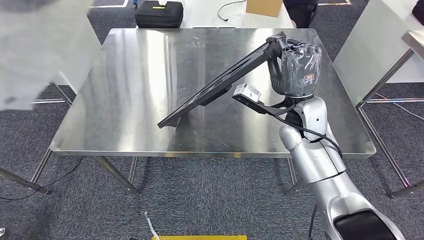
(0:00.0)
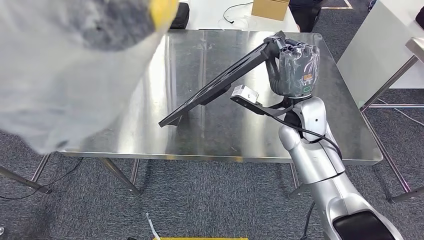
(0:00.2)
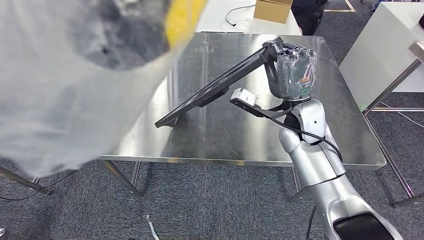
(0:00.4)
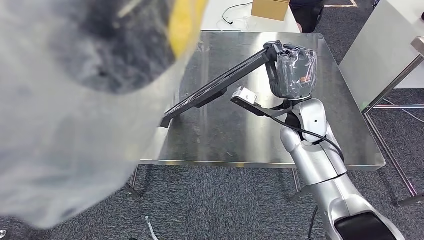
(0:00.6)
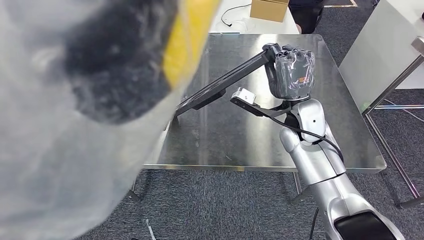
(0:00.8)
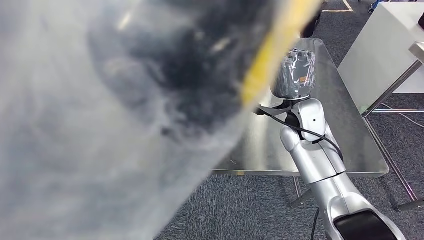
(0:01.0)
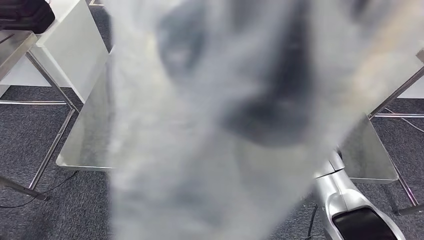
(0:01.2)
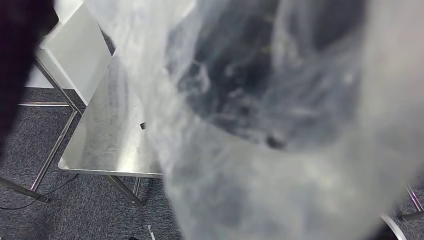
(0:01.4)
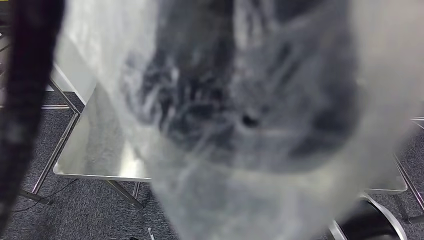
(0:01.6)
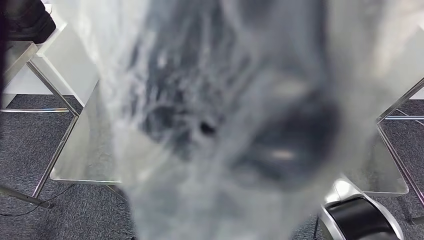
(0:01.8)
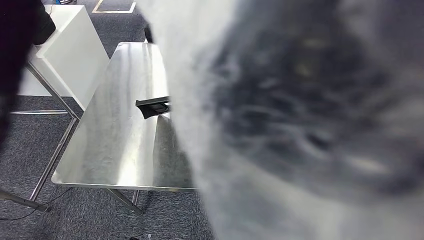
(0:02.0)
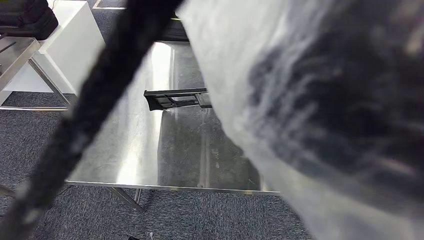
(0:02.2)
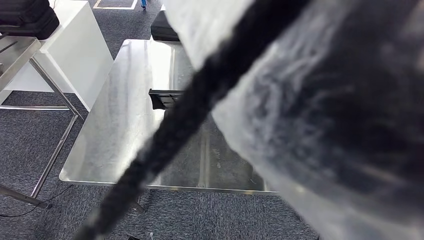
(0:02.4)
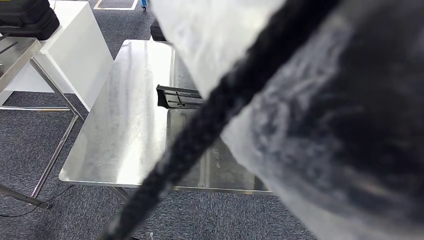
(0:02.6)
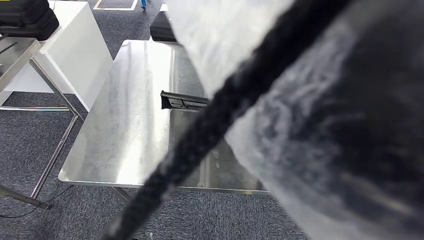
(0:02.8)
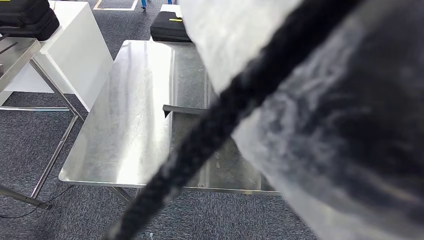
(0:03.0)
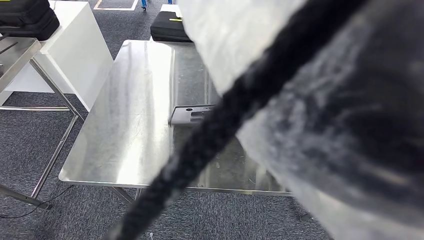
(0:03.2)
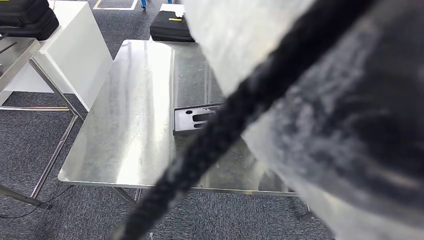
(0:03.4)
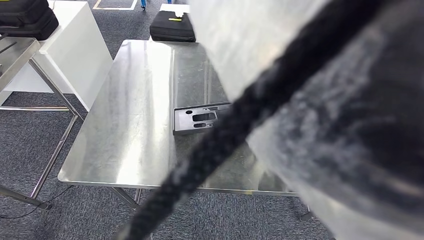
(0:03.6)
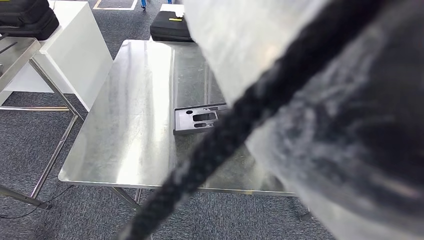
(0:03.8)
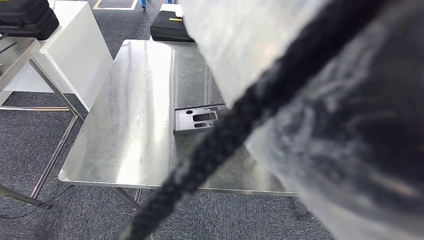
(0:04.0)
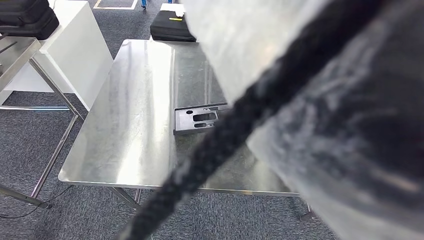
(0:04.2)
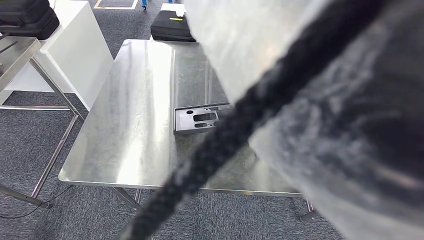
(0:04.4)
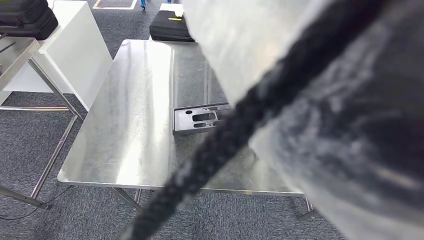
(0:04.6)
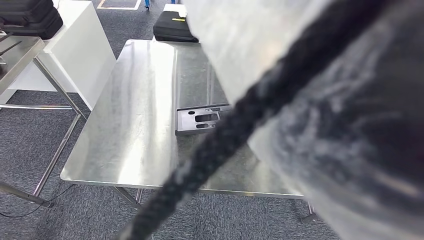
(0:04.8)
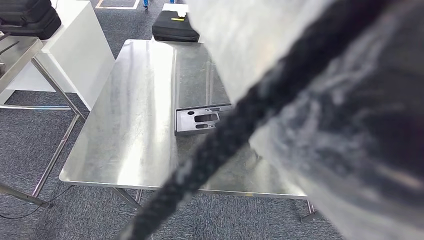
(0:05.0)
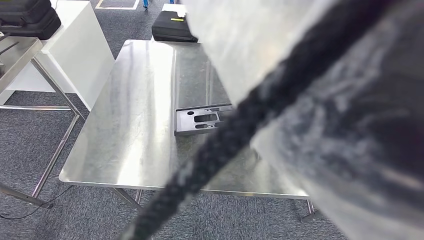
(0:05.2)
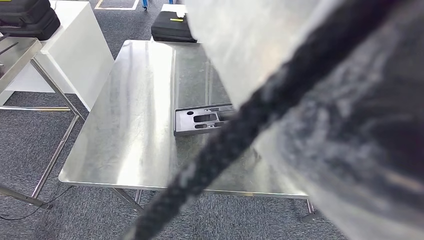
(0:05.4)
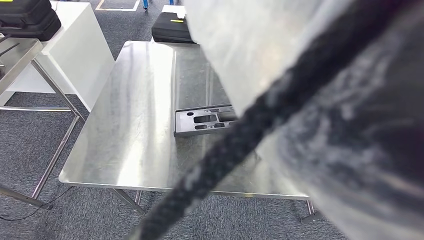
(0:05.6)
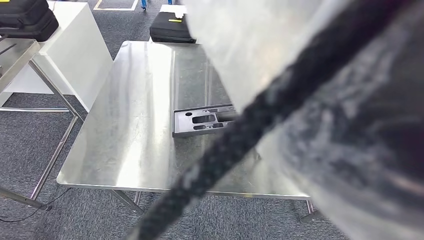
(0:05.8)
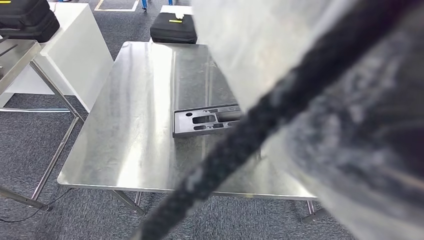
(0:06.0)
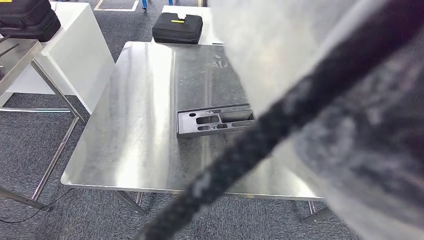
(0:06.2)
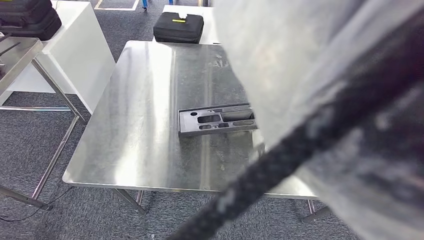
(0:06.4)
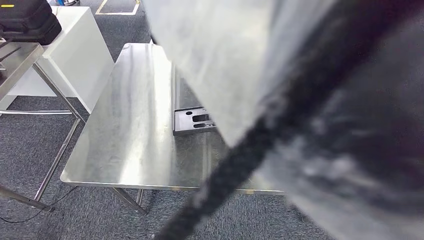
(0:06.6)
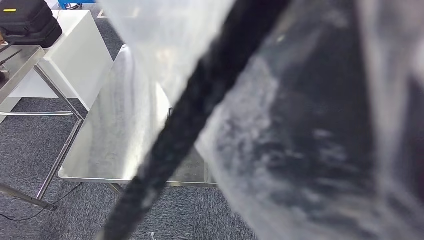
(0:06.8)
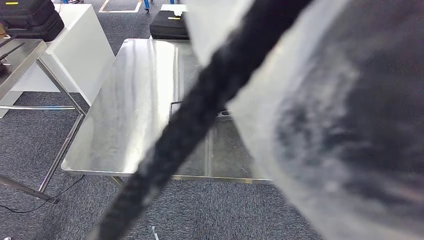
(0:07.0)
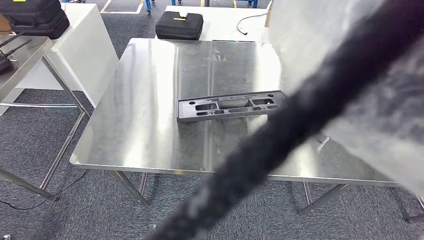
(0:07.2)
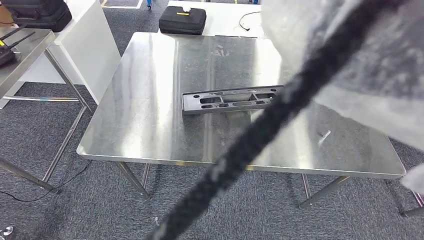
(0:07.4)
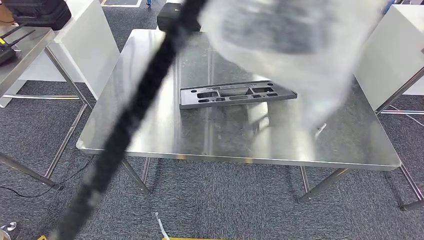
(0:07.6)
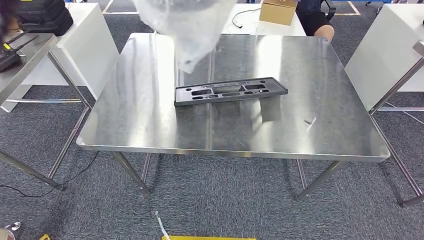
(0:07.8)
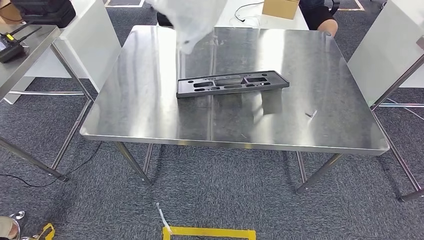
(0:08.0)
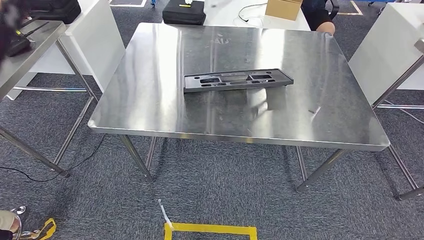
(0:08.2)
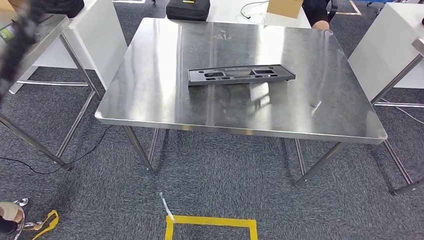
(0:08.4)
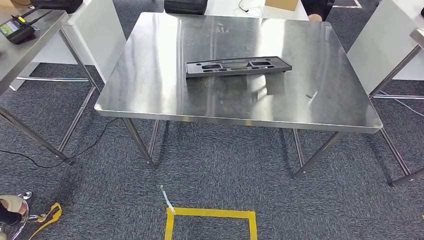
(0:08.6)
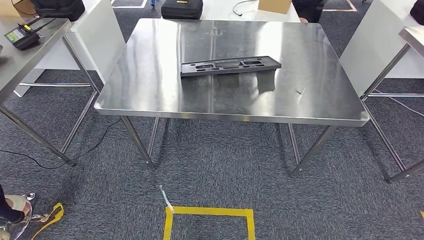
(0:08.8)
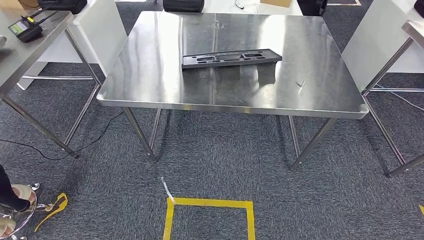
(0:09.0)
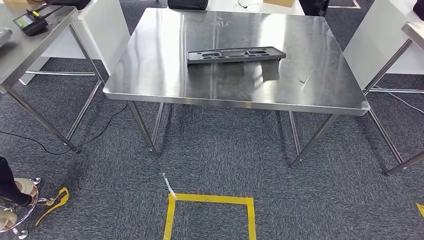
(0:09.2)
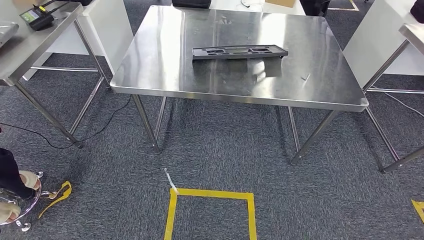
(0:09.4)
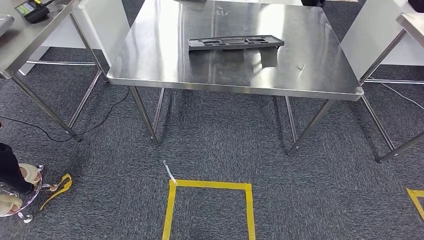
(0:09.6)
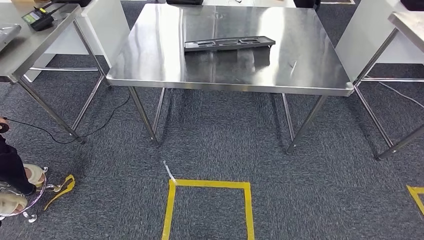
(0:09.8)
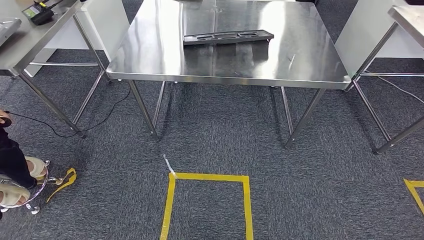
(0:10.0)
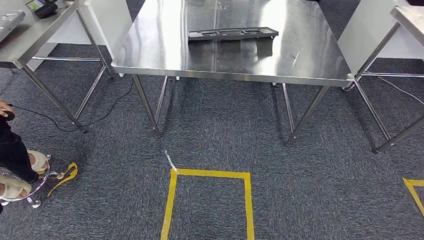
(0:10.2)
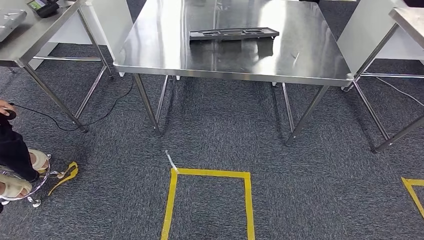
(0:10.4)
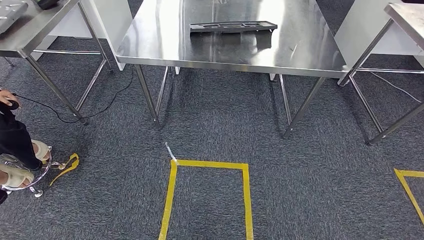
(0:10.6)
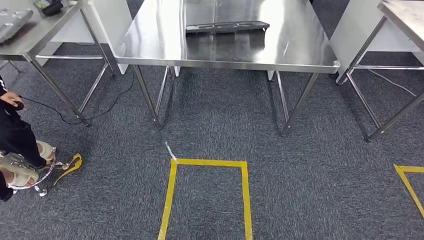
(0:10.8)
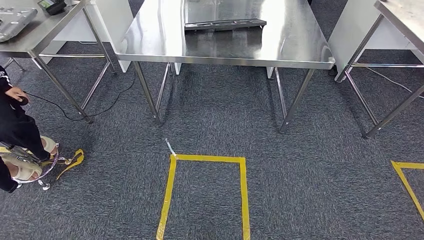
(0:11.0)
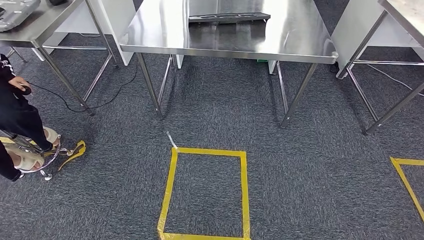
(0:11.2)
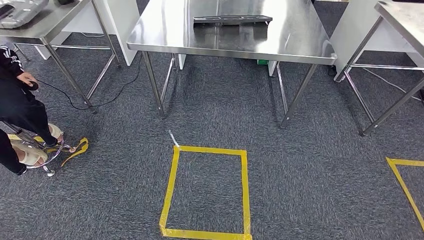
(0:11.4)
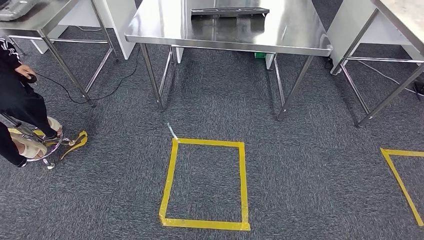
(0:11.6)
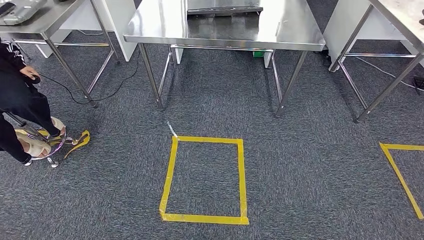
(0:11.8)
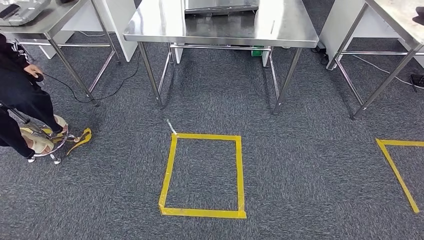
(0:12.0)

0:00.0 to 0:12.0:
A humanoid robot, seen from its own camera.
Step, 0:00.0 to 0:03.0: Insert the large material into the corresponding slot on the workbench.

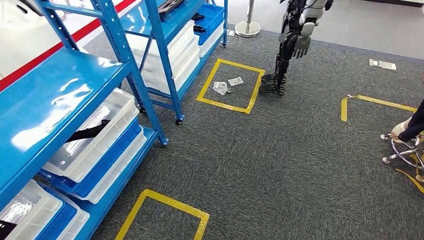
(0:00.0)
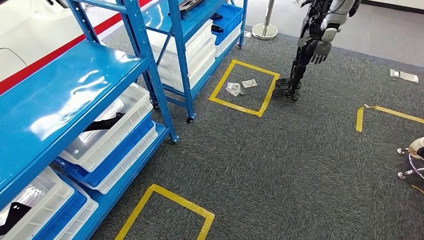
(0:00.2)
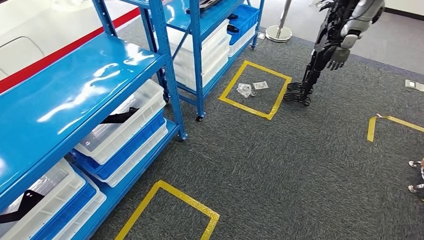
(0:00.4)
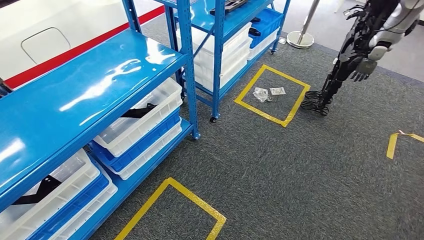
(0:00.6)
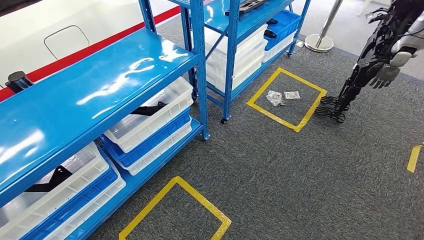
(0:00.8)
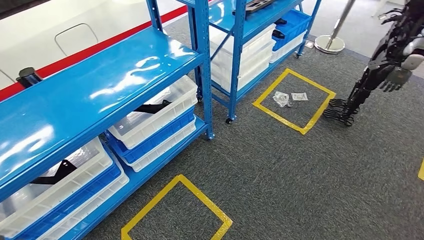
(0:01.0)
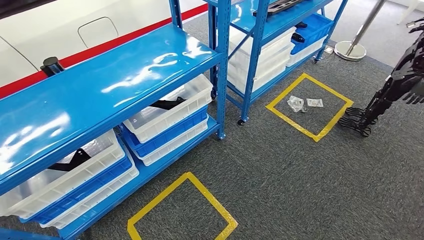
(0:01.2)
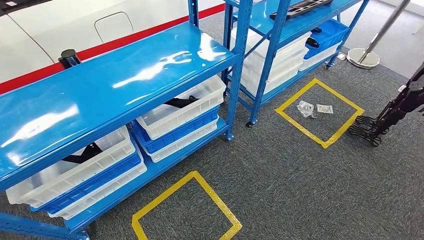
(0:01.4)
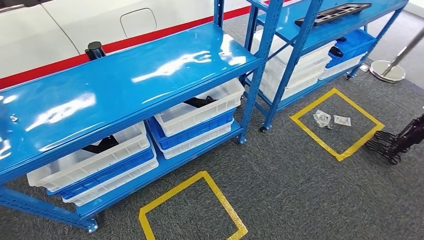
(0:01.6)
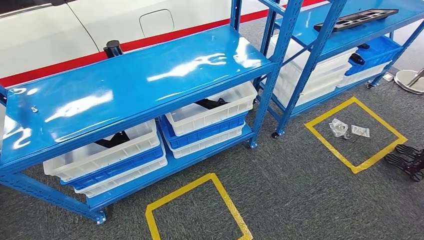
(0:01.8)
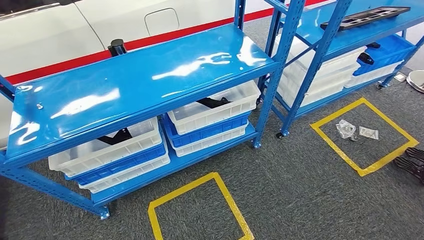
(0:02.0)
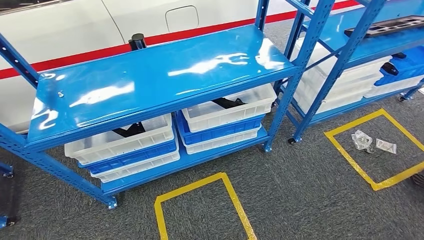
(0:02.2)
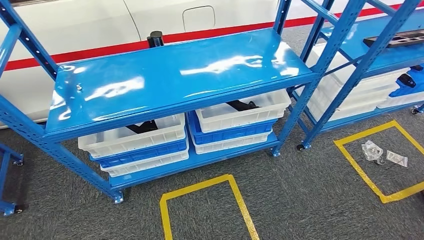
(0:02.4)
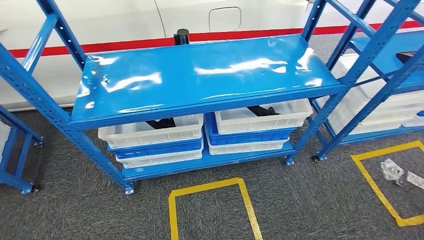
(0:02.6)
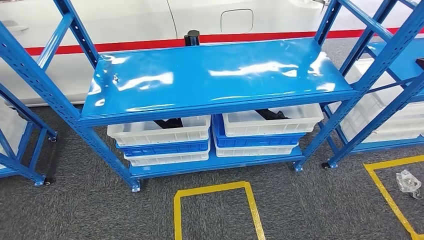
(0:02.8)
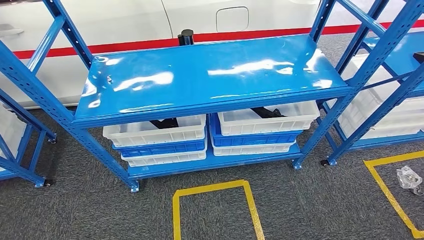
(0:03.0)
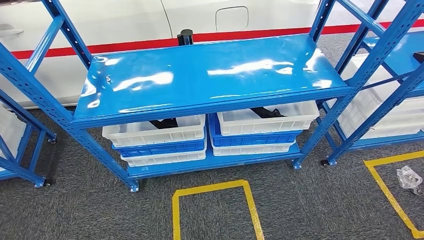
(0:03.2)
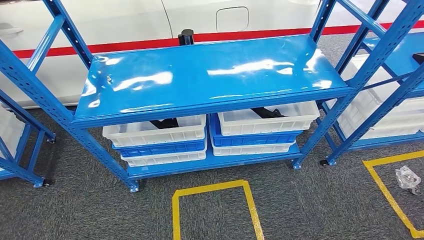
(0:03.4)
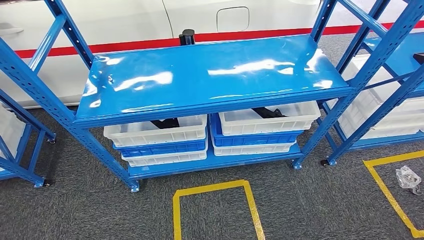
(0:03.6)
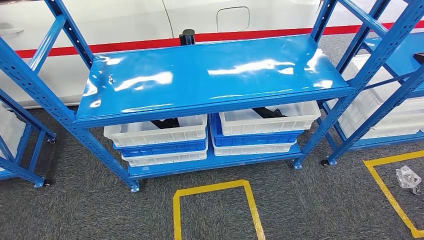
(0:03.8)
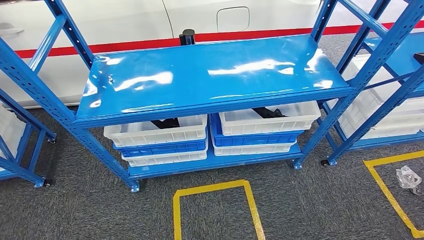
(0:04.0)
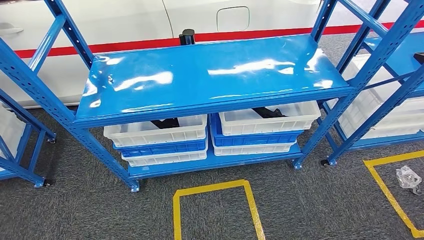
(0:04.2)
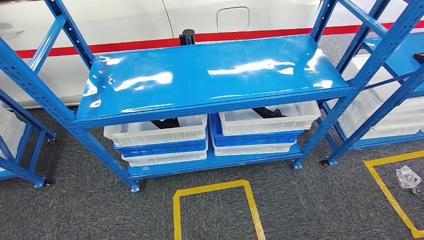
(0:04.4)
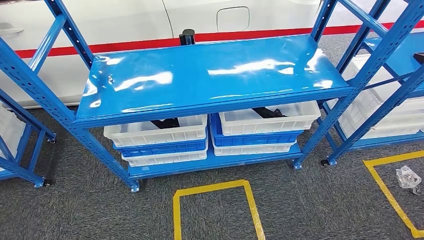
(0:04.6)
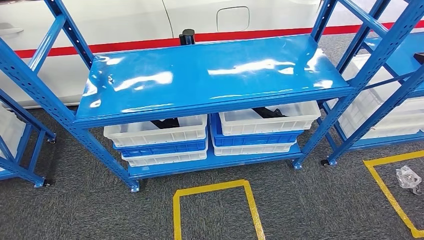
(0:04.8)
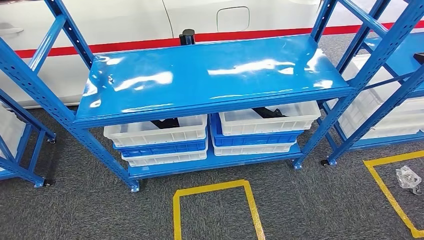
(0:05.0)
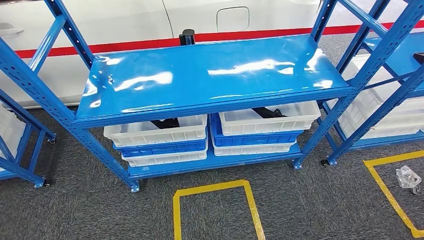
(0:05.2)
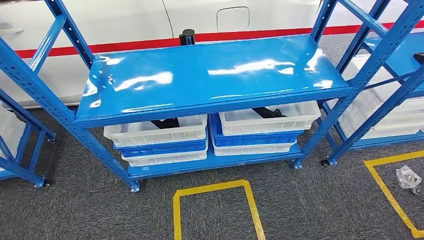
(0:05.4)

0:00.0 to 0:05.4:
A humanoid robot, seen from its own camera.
Step, 0:00.0 to 0:05.2: Return to the initial position at the shelf.
